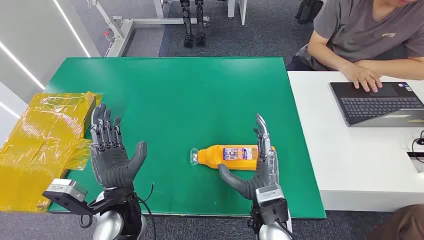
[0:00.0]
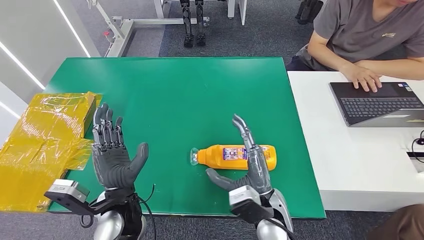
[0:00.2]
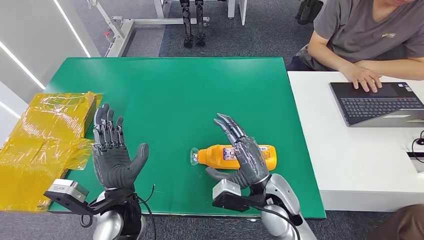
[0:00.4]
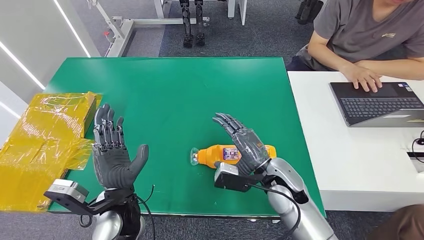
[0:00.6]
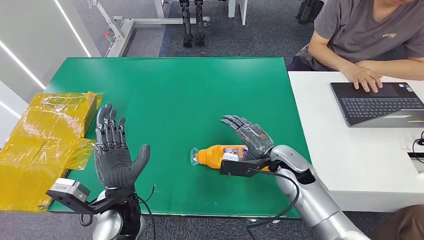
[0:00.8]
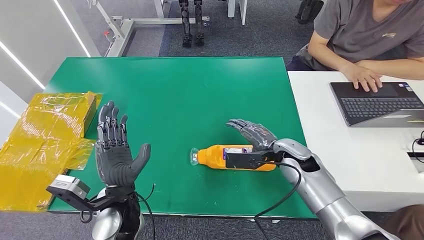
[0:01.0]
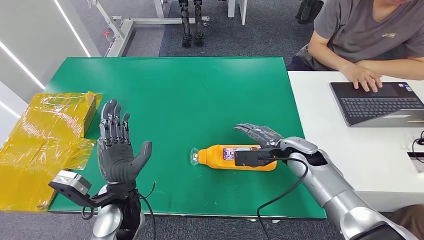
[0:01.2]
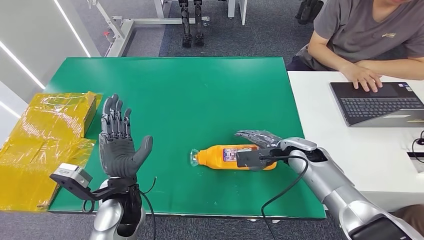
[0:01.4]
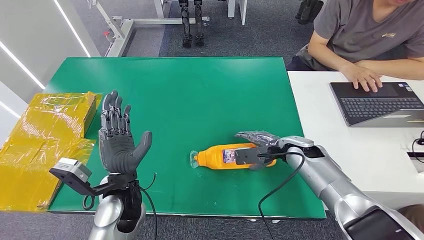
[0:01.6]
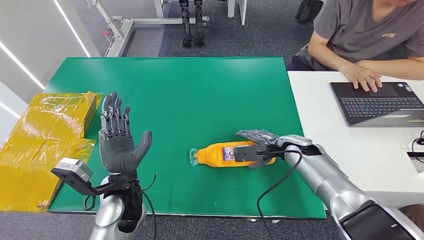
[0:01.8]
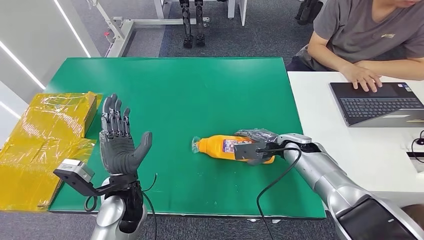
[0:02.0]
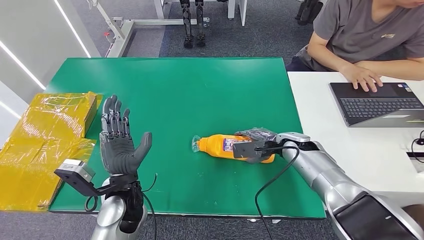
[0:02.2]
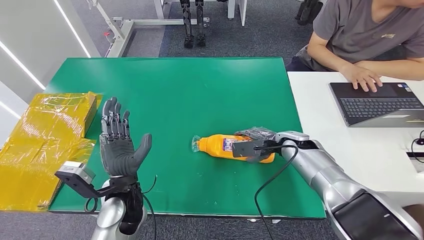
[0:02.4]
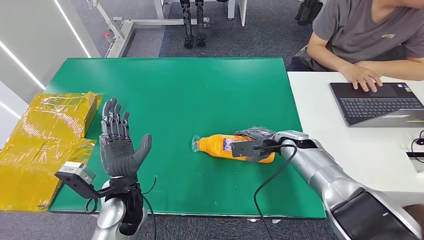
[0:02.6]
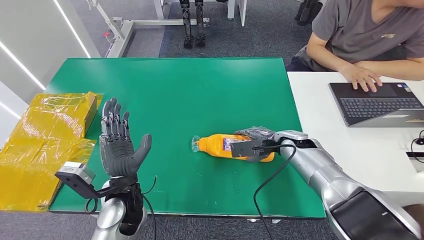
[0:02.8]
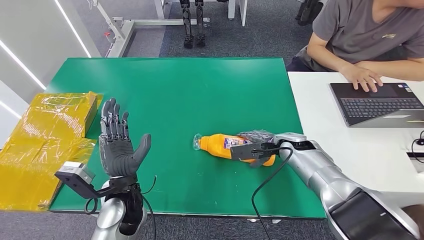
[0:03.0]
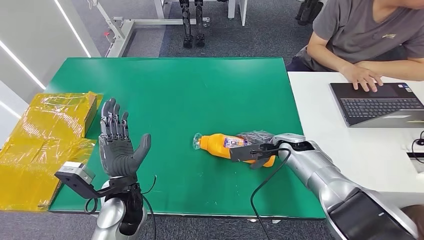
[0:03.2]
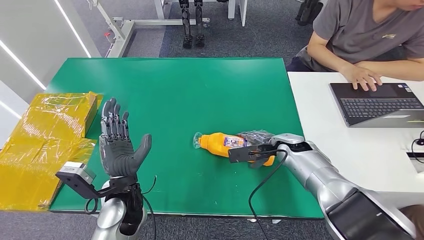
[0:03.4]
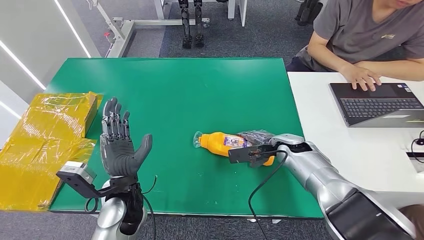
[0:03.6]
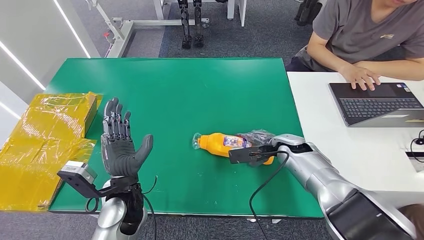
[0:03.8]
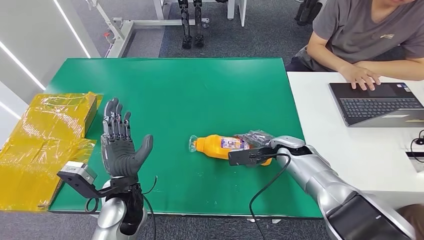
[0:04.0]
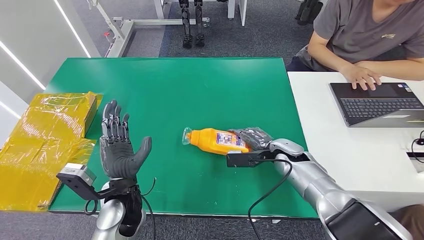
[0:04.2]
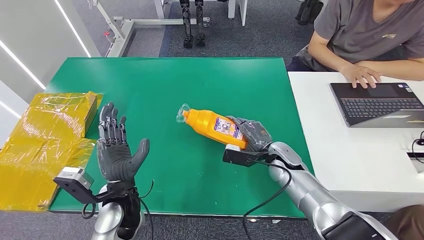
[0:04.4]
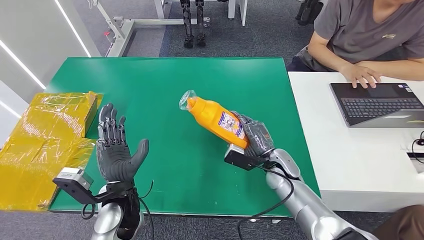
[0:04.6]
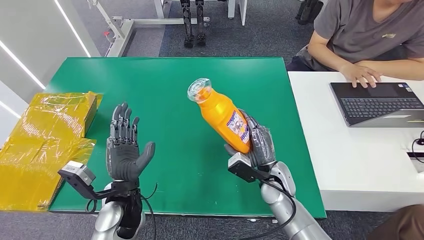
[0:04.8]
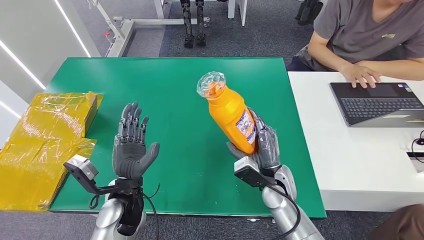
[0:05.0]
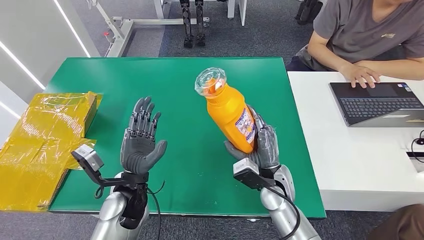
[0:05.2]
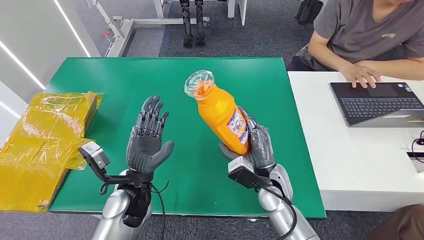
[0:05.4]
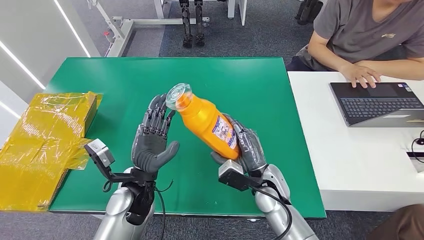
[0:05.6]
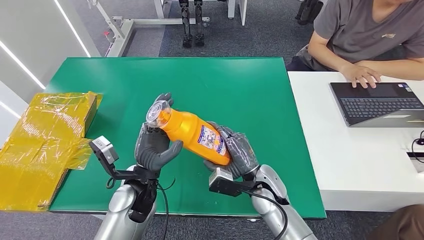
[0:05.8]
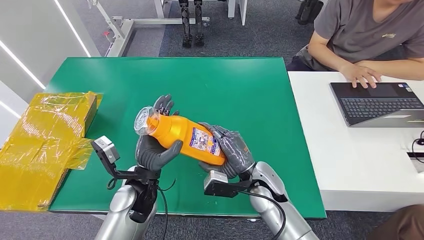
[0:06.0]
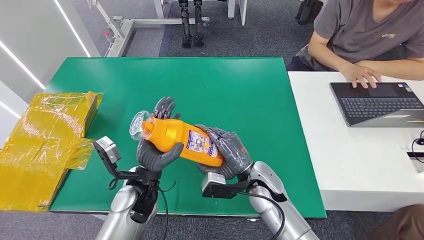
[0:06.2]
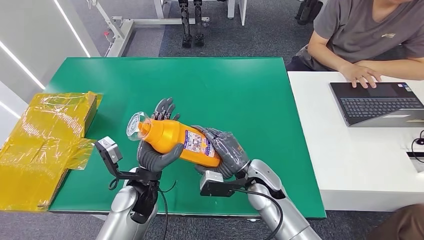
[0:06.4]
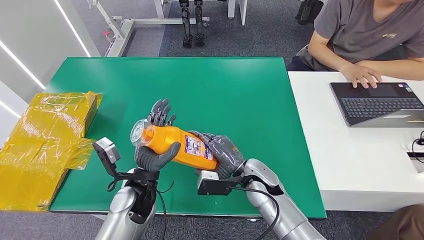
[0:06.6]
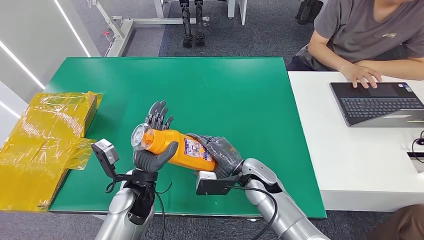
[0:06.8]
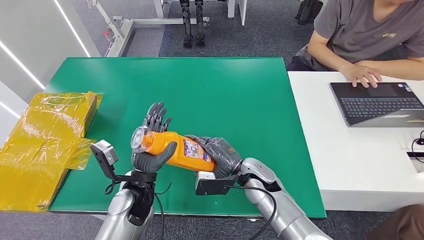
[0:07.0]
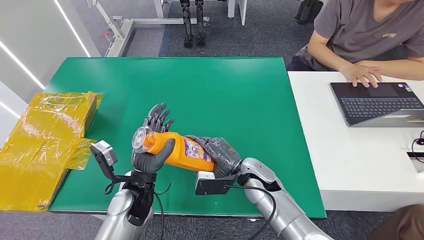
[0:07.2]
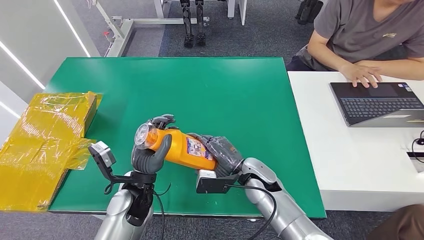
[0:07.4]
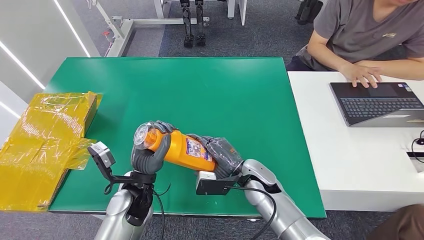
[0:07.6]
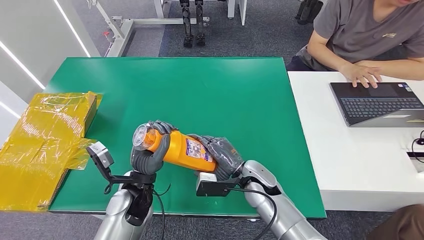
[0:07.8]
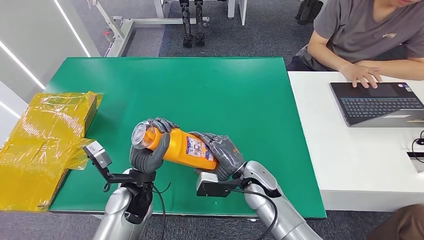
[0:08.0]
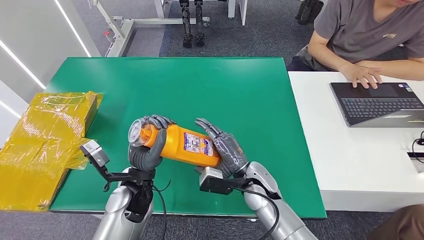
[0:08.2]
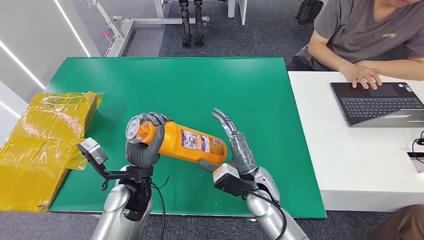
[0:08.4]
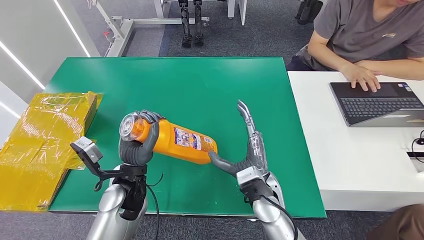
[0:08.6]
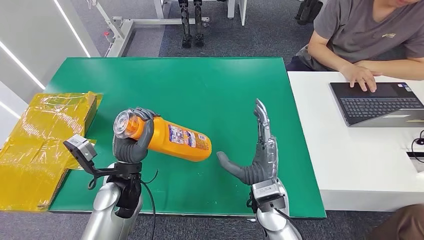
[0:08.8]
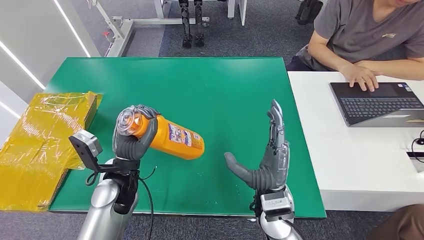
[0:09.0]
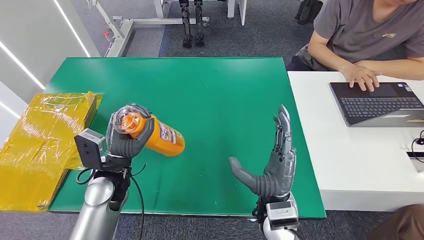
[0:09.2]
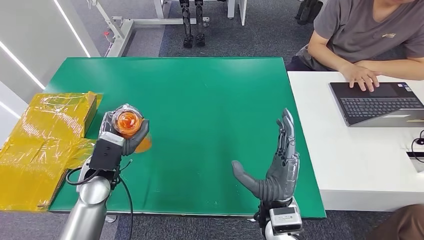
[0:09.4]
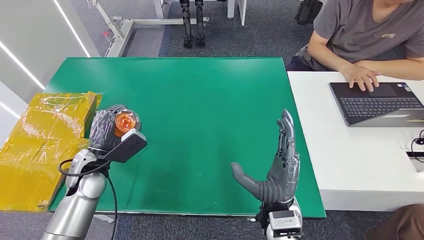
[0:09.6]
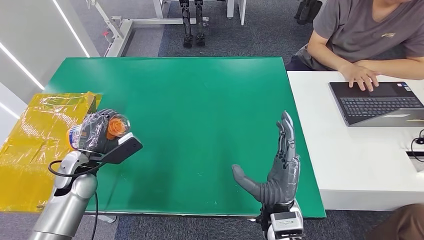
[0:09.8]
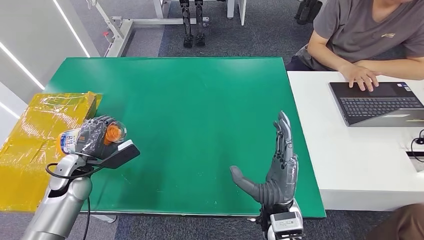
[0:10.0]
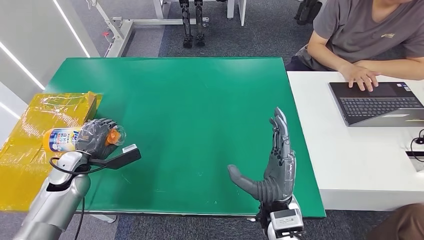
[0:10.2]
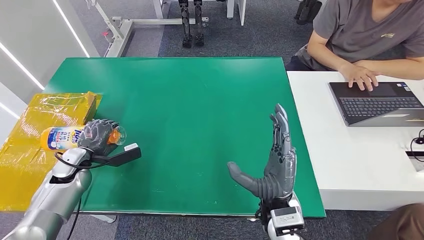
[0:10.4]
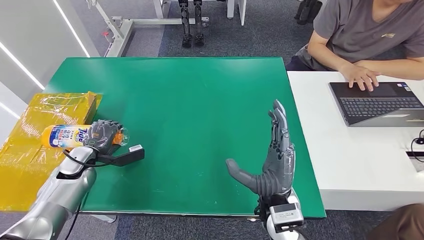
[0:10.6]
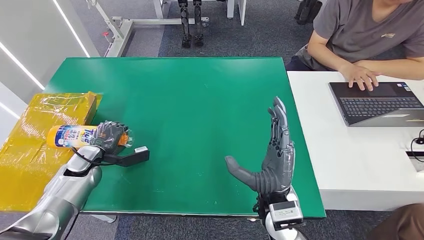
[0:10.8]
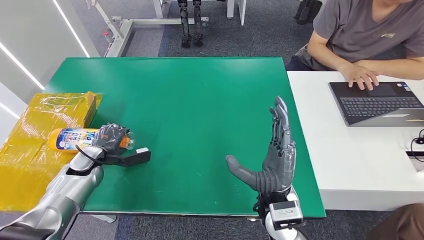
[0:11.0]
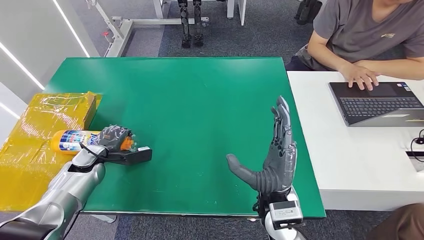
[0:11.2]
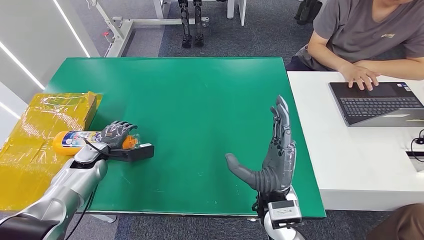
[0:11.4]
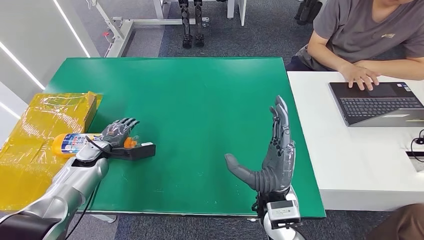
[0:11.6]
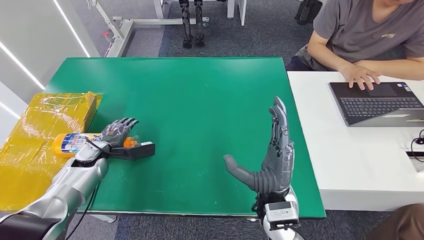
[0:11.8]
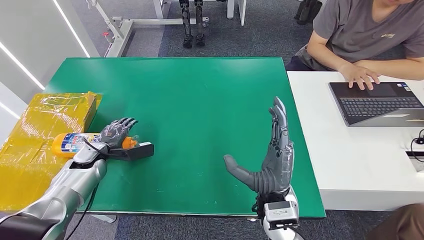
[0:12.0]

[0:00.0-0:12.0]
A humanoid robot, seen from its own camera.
Step, 0:00.0 to 0:06.8: Pick up the bottle from the table.
0:01.6 to 0:03.0: The hands make only small movements.
0:03.0 to 0:04.4: The right hand changes place by roughly 5 cm.
0:04.4 to 0:06.0: The right hand moves to the left and backward, about 10 cm.
0:07.6 to 0:09.0: The right hand moves backward and upward, about 10 cm. The left hand shifts by some 5 cm.
0:09.0 to 0:10.4: The left hand is displaced to the left by roughly 20 cm.
0:10.4 to 0:12.0: The hands stay close to where they were, moving slightly.

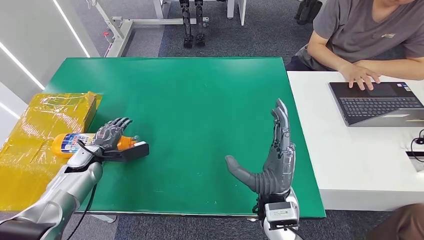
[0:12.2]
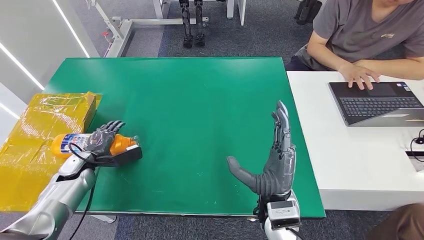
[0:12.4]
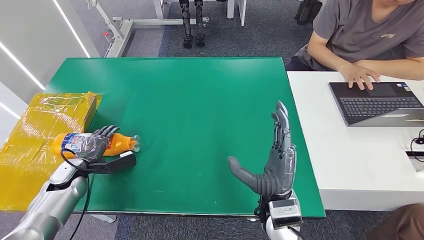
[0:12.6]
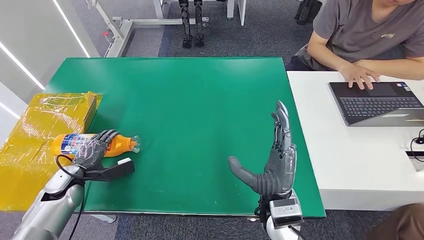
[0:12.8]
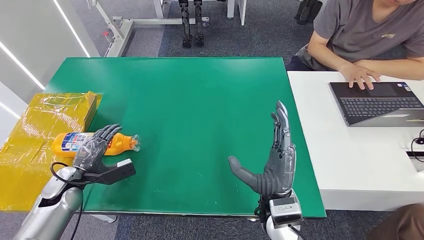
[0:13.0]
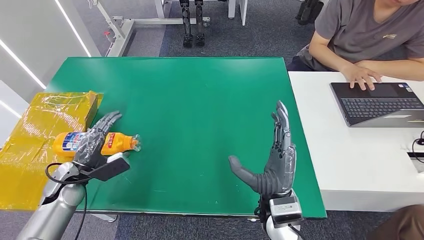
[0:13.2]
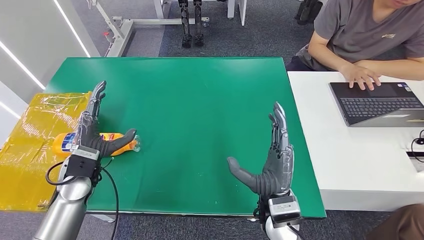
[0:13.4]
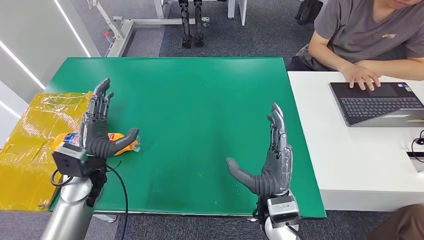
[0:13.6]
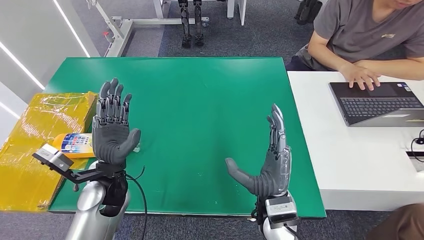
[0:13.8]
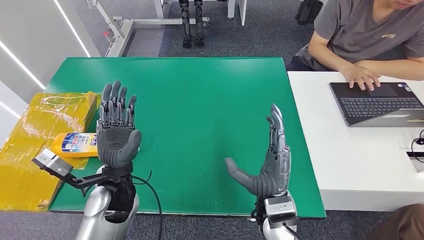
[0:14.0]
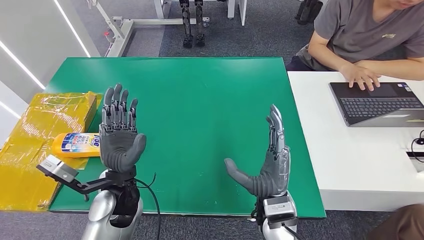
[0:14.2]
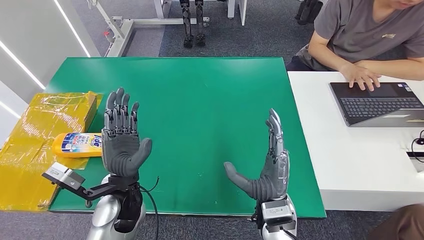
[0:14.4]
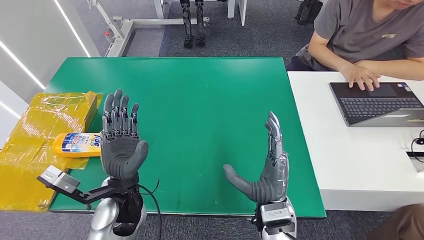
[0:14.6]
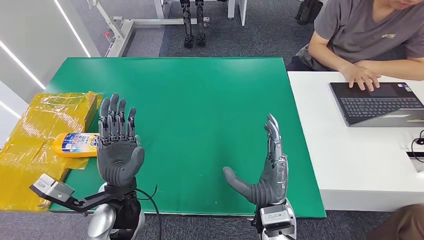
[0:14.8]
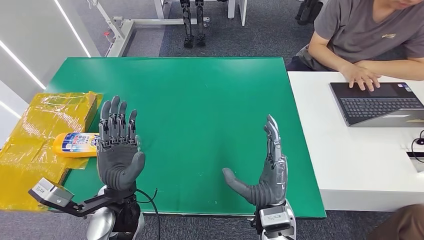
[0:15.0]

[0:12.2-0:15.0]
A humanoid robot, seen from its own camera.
Step, 0:12.2 to 0:15.0: Turn the bottle to the front side.
0:12.2 to 0:13.6: The left hand goes roughly 15 cm to the right, upward and backward.
0:13.6 to 0:15.0: The left hand travels to the right and backward by roughly 15 cm.
